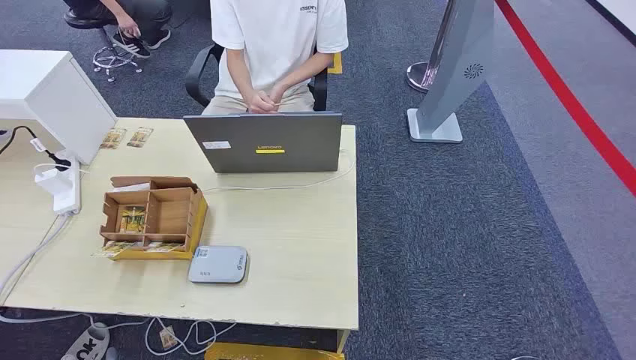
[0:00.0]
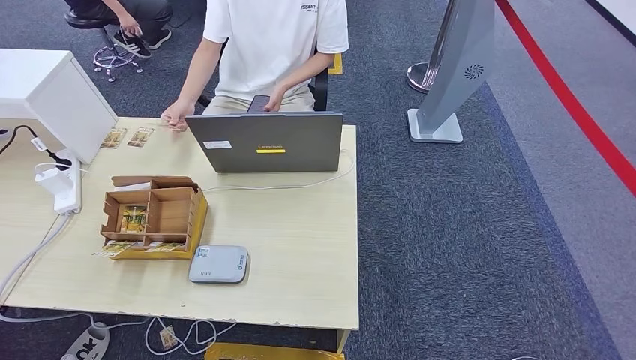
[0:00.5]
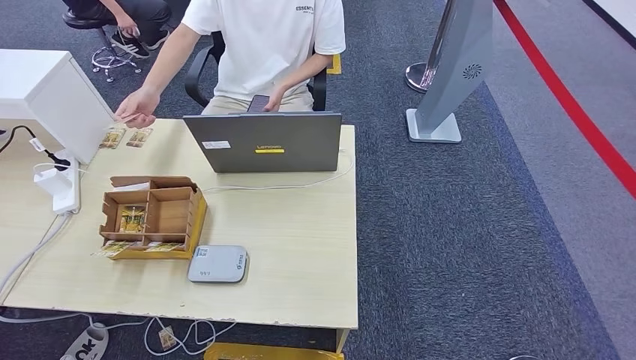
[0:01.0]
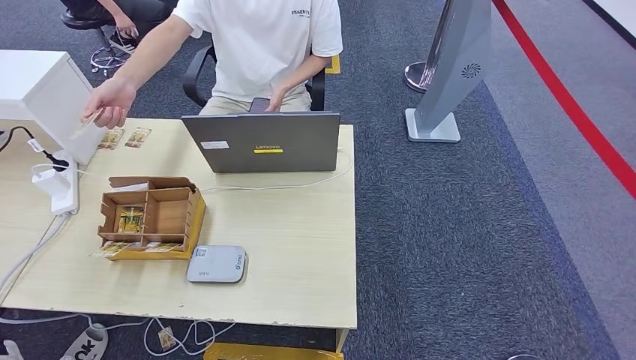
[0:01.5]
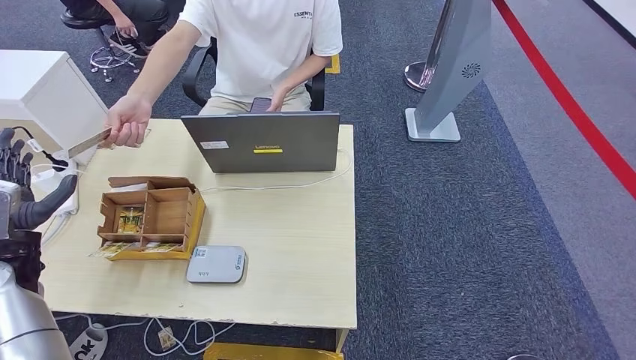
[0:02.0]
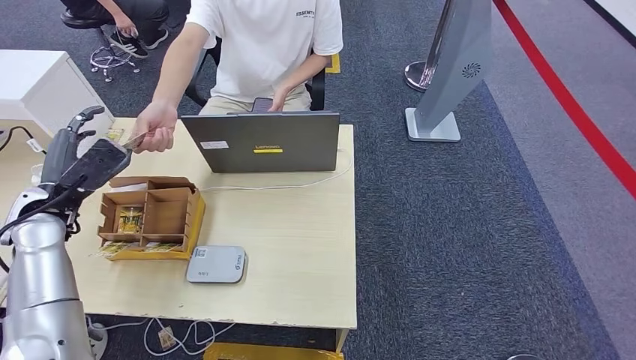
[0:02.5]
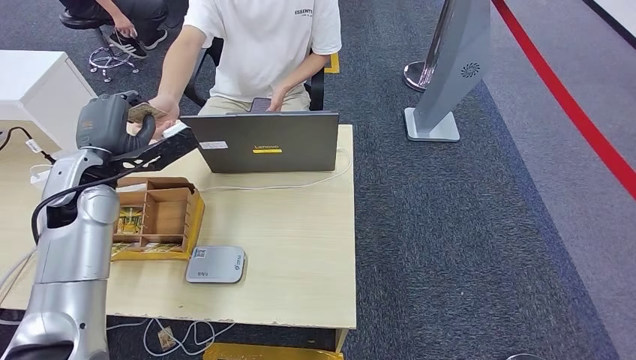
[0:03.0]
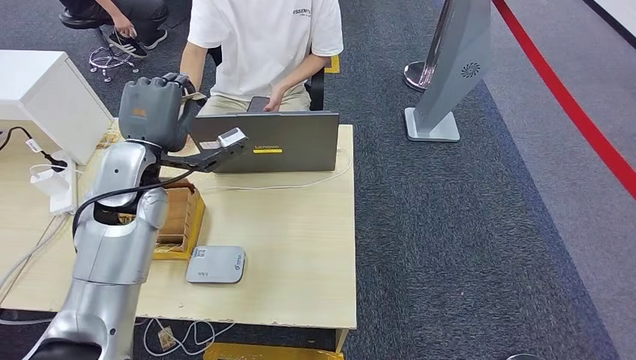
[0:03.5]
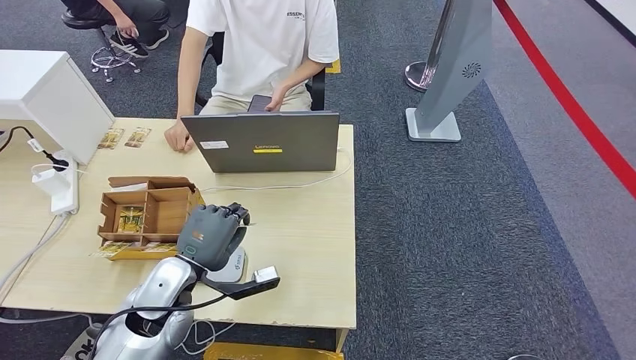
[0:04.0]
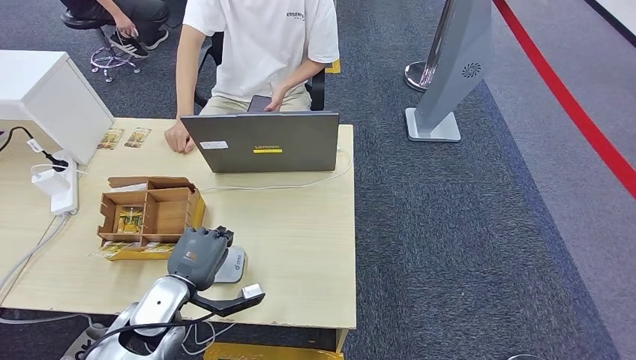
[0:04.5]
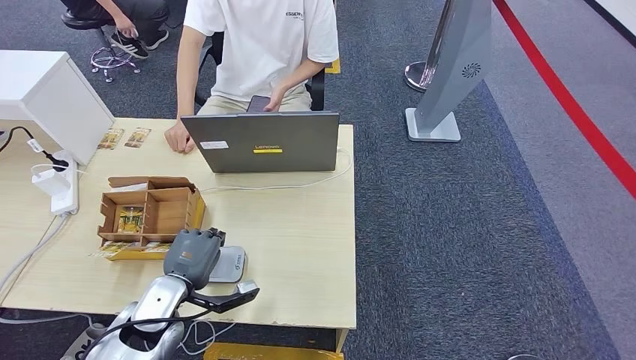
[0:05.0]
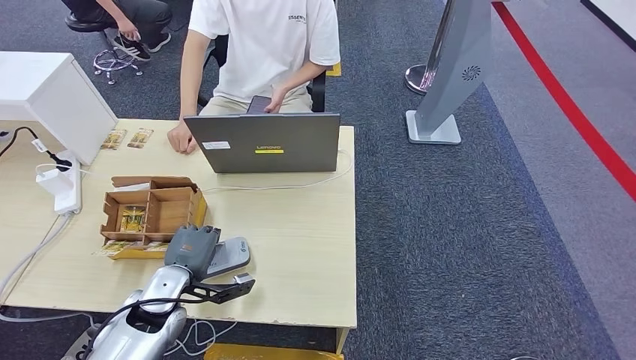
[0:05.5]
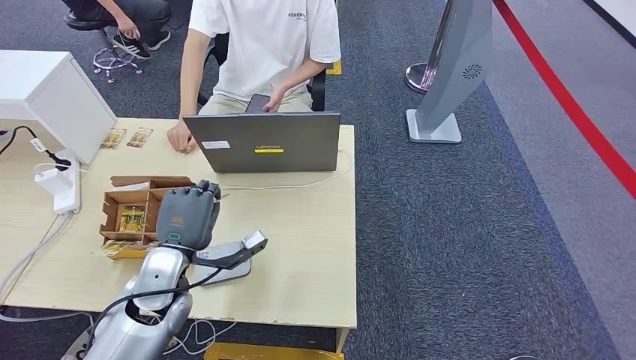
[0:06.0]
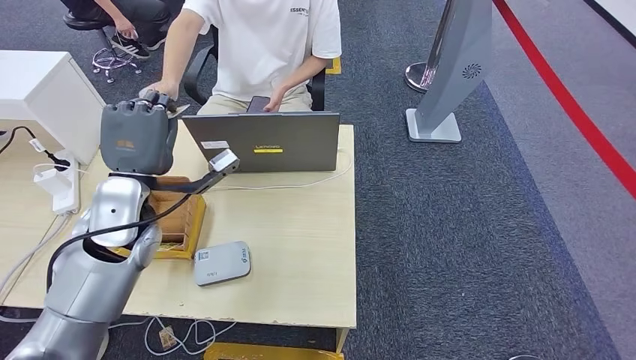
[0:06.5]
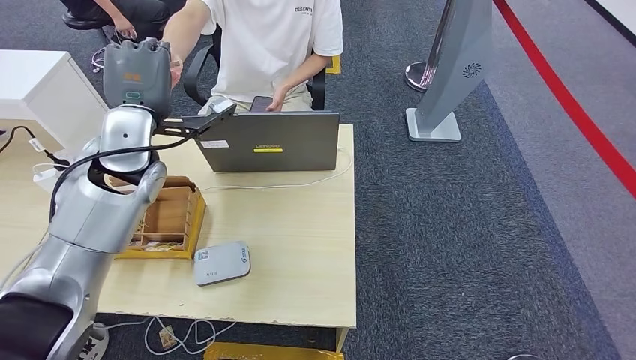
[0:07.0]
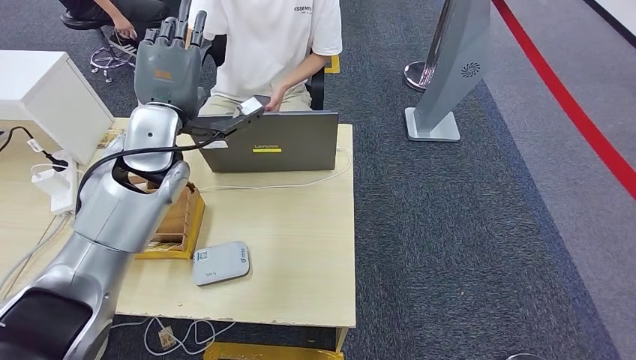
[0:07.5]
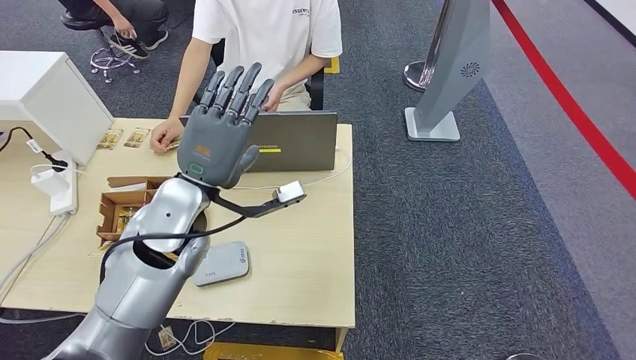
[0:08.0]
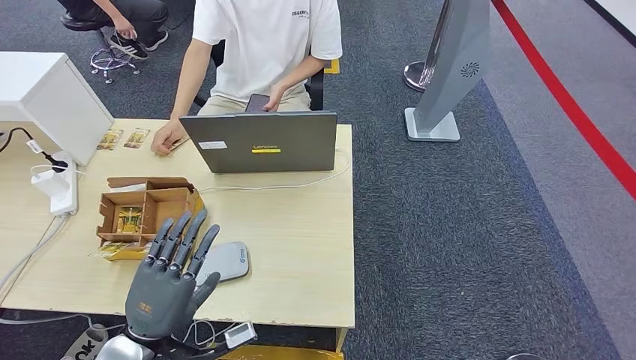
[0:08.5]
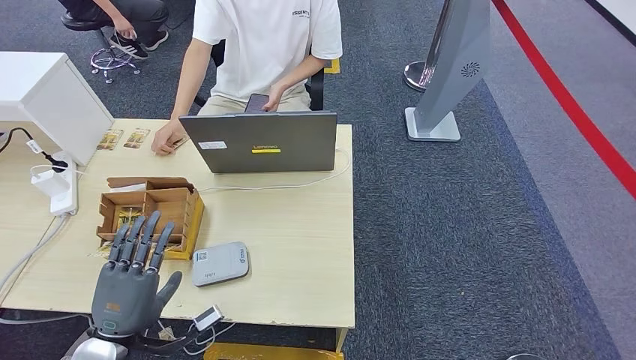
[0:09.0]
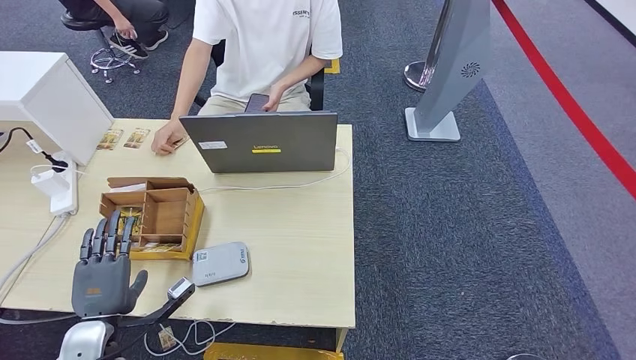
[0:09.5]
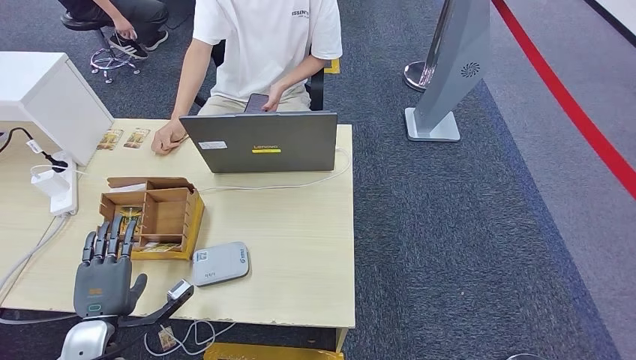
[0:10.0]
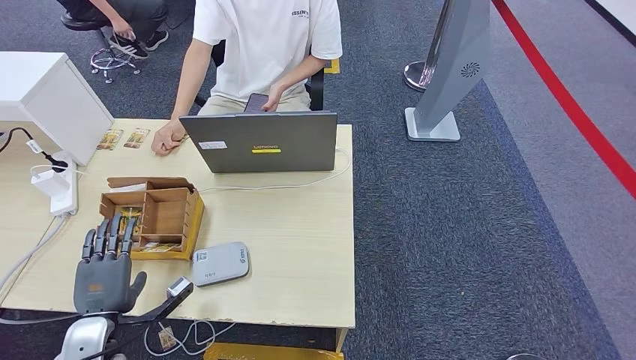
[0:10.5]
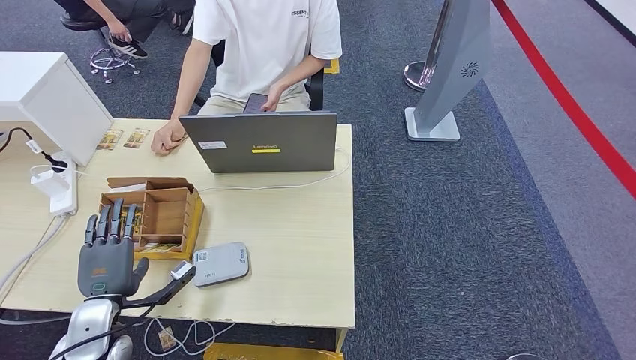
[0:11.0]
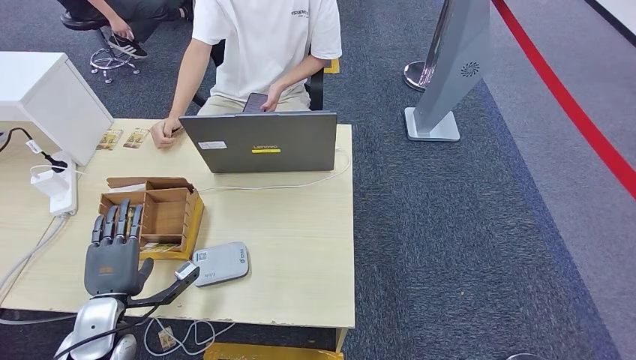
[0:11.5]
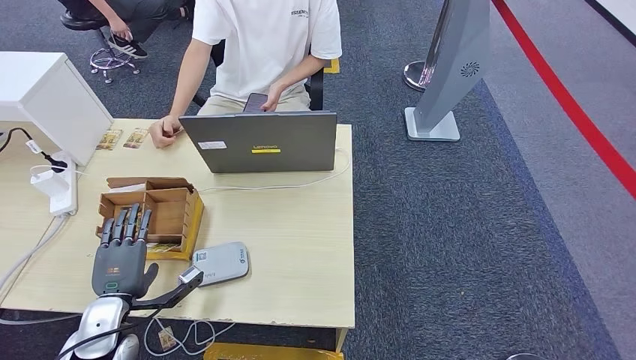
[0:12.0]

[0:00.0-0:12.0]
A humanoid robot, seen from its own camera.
Step, 0:00.0 to 0:03.5: Take the ID card from the person's hand.
Step, 0:04.0 to 0:06.0: Place the ID card on the card reader.
Step, 0:06.5 to 0:07.5: Hand the ID card to the person.
0:02.0 to 0:04.0: The left hand shifts approximately 25 cm to the right.
0:04.0 to 0:06.0: The left hand moves about 5 cm downward and comes back.
0:06.0 to 0:08.0: The left hand goes roughly 15 cm upward and to the right.
0:08.0 to 0:10.0: The left hand heads downward, to the left and backward, covering about 30 cm.
0:10.0 to 0:12.0: The hands make only small movements.

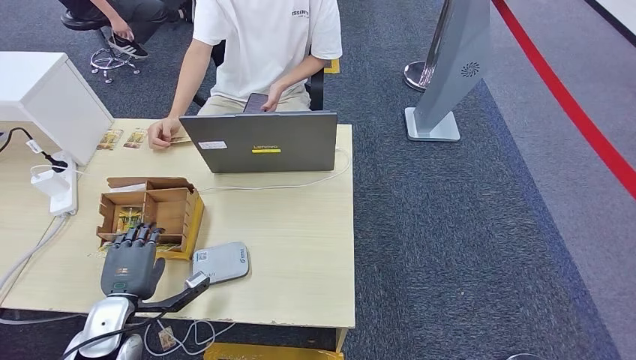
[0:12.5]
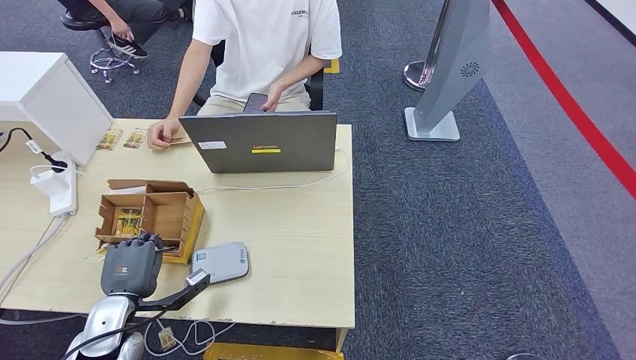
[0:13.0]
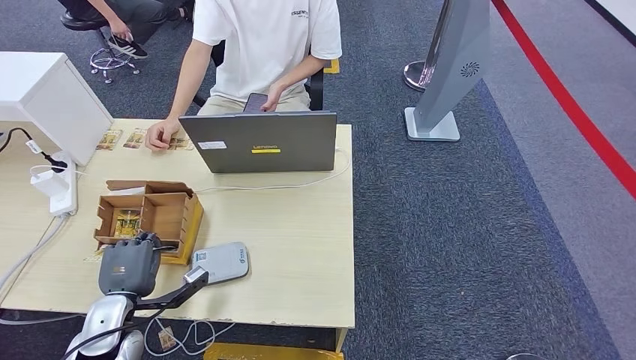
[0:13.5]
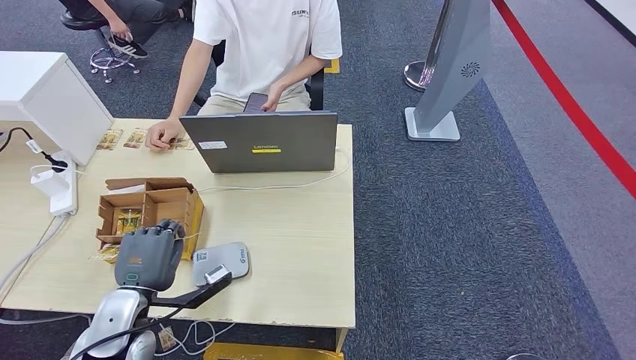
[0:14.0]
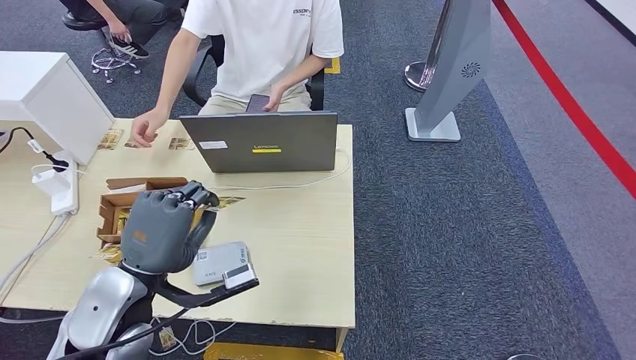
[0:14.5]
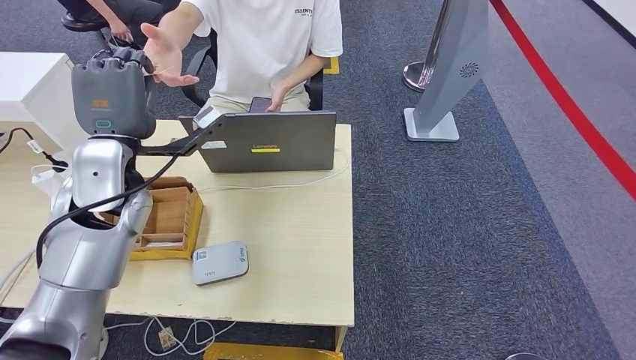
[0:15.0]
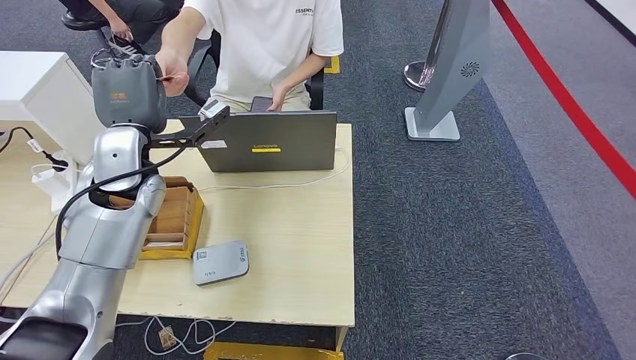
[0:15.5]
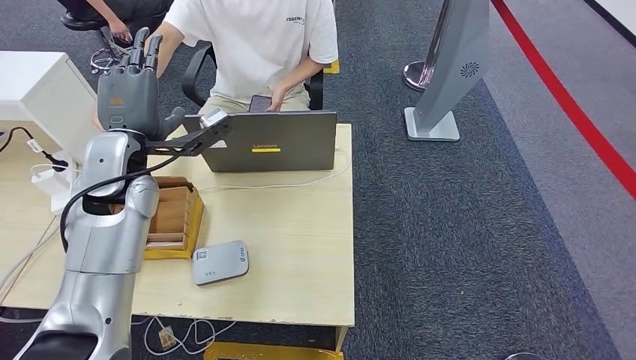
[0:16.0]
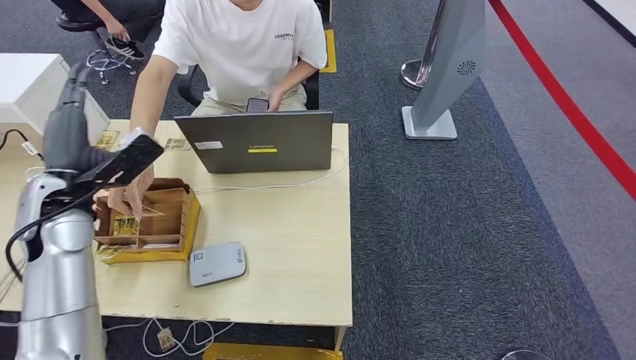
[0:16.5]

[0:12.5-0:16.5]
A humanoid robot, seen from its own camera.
Step, 0:14.5 to 0:16.5: Hand the room key to the person.
0:12.5 to 0:14.5: The left hand heads upward and to the right, covering about 20 cm.
